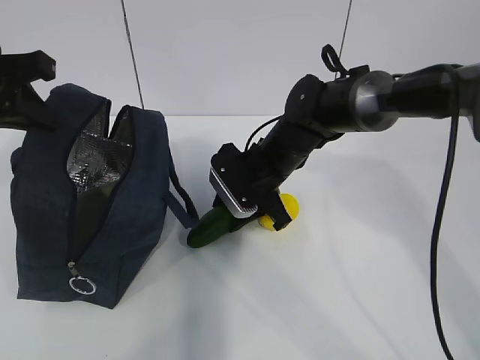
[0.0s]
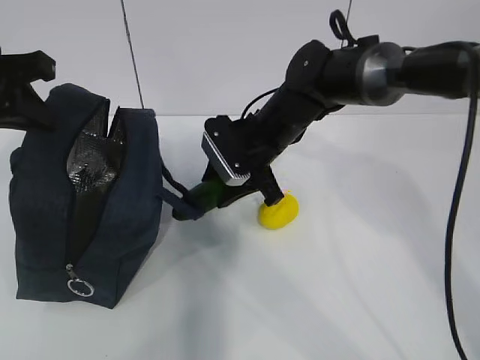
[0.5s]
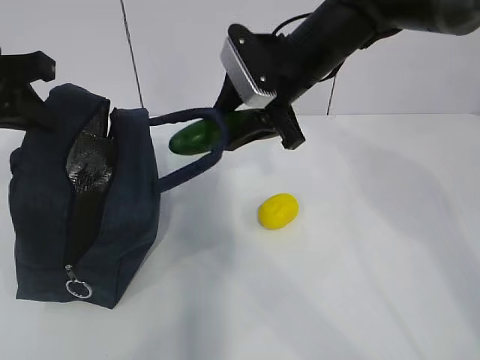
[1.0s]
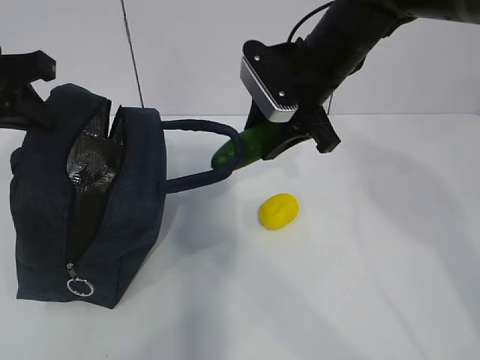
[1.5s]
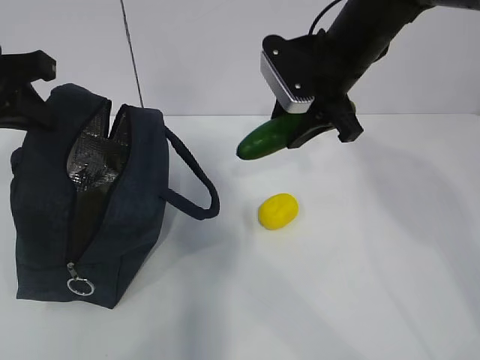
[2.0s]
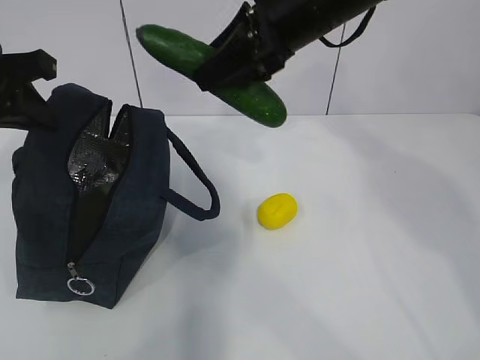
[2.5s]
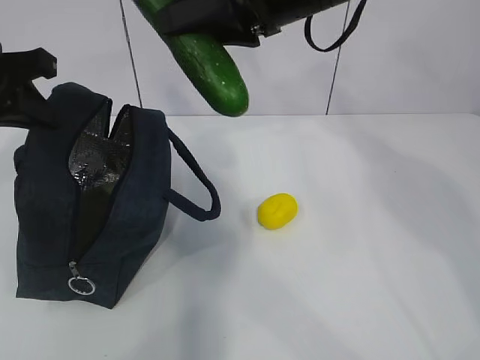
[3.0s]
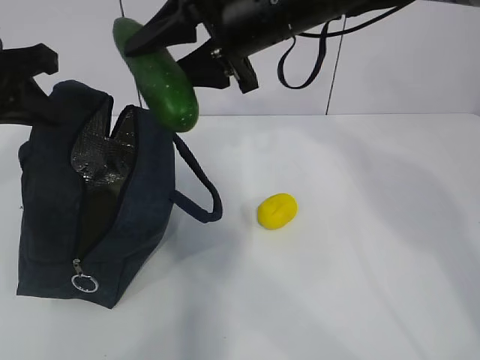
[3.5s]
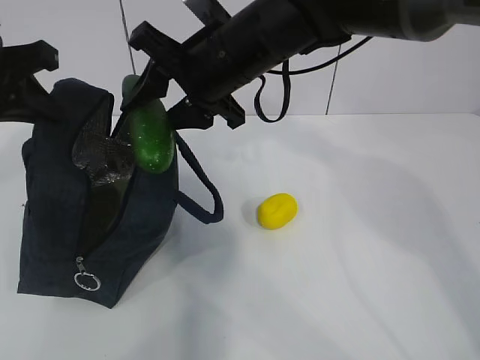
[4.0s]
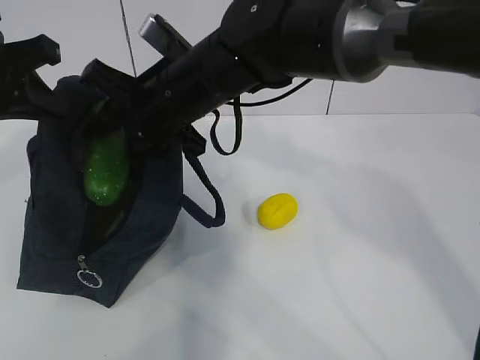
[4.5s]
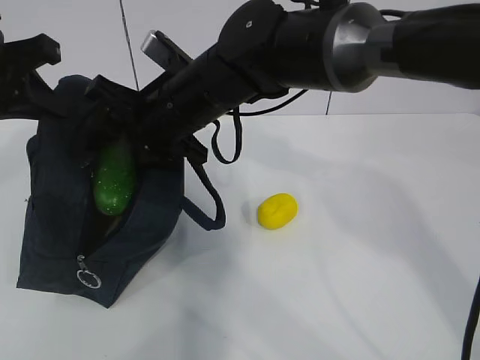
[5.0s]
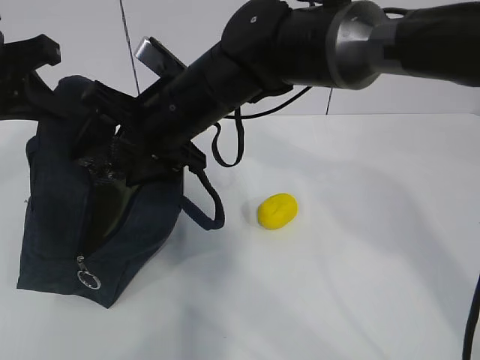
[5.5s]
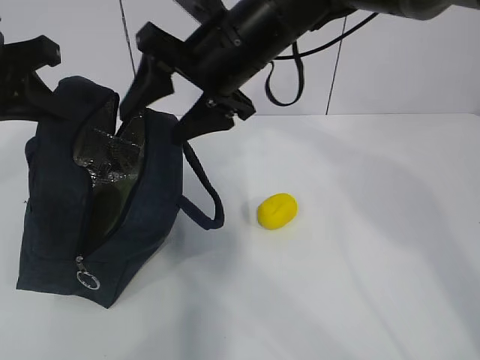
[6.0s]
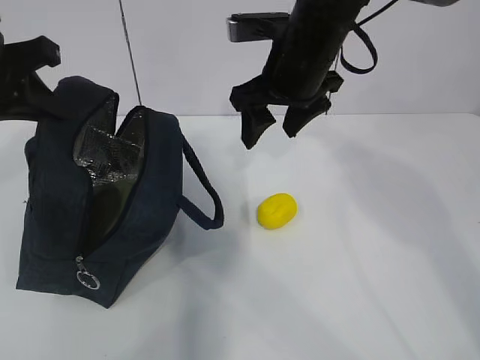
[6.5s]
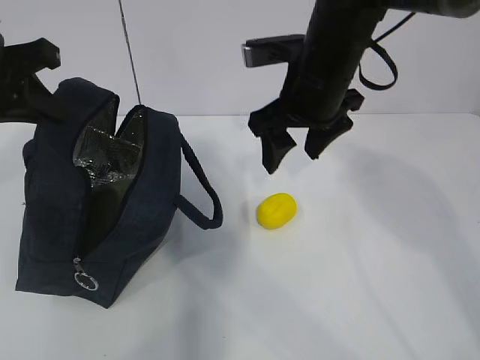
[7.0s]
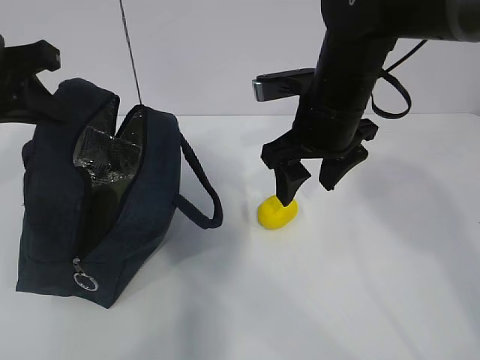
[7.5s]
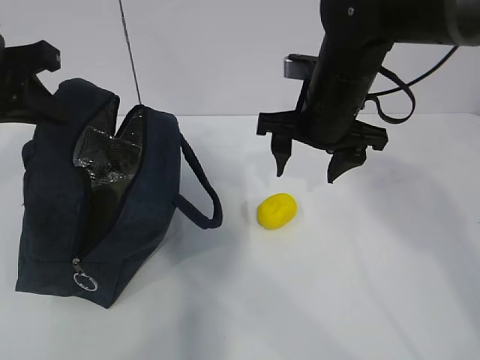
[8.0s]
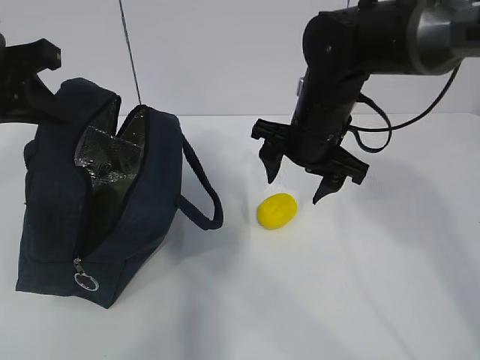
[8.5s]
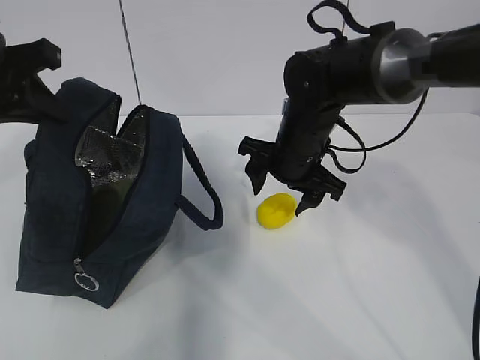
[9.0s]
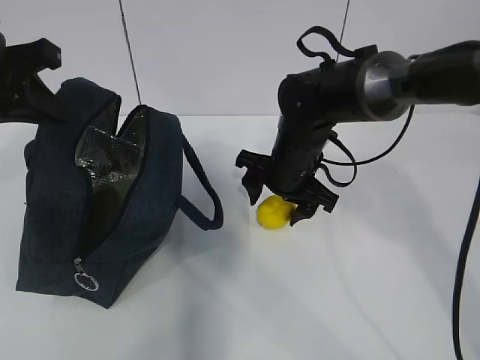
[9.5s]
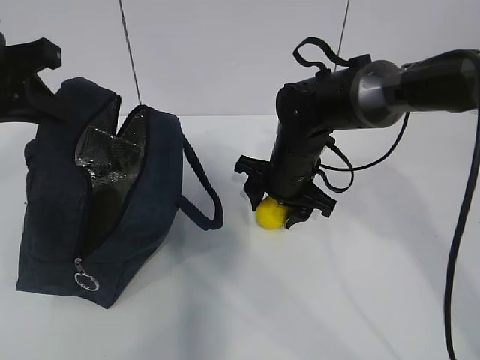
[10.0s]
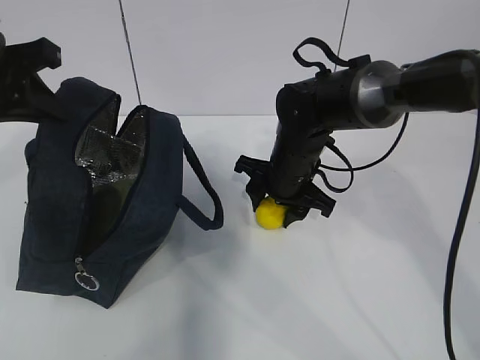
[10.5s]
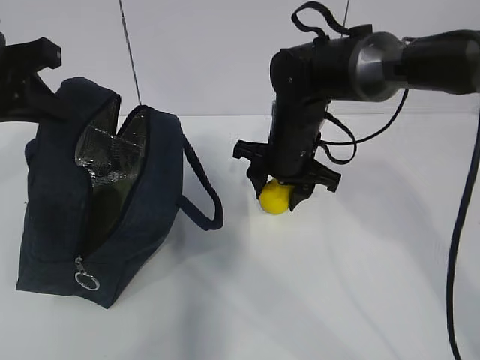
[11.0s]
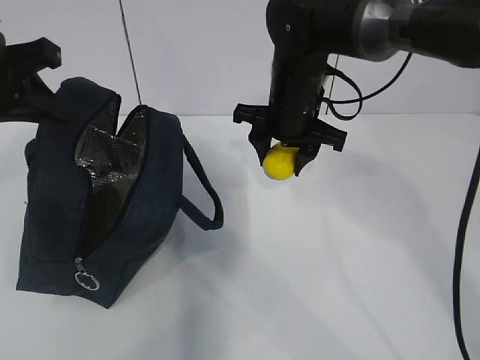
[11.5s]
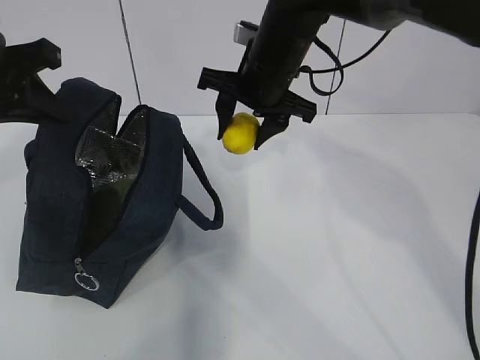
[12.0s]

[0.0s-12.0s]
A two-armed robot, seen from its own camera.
Step, 0.0s to 3.0s: Grab the lemon with your right hand.
Step, 7.5s to 10.0s: Grab the lunch bag with your right hand.
0.0s to 2.0s: The right gripper is displaced upward and to the right by about 15 cm.
2.0s to 4.0s: The right gripper travels to the left by roughly 10 cm.
6.0s to 8.0s: The right gripper goes approximately 10 cm to the right and downward.
8.0s to 10.0s: The right gripper travels downward by approximately 10 cm.
10.0s to 12.0s: The right gripper shifts some 10 cm upward.

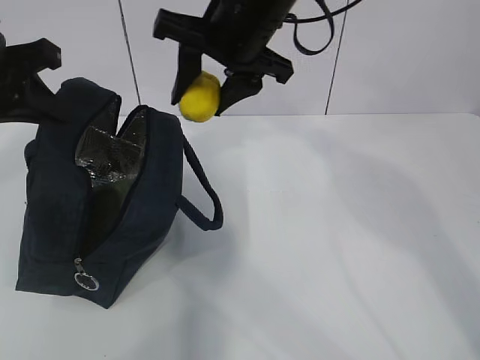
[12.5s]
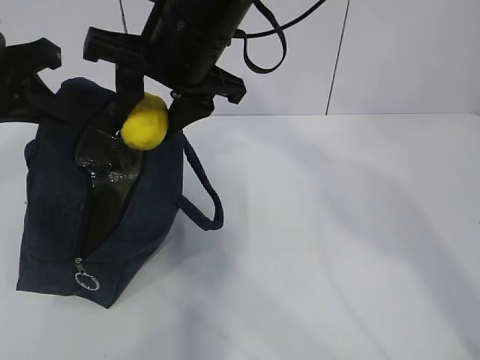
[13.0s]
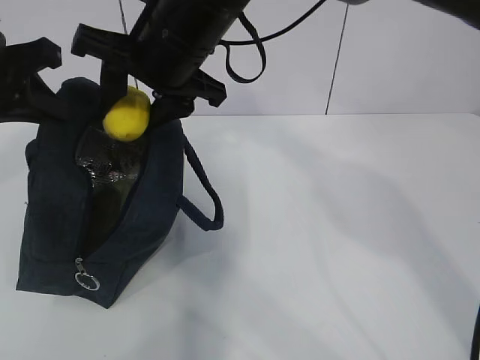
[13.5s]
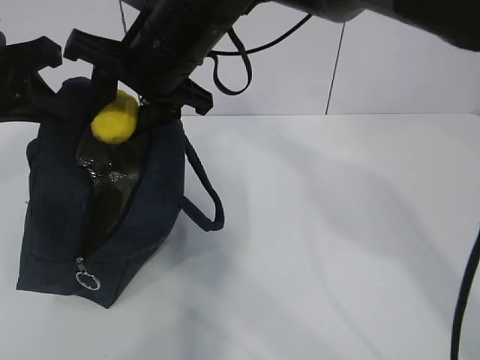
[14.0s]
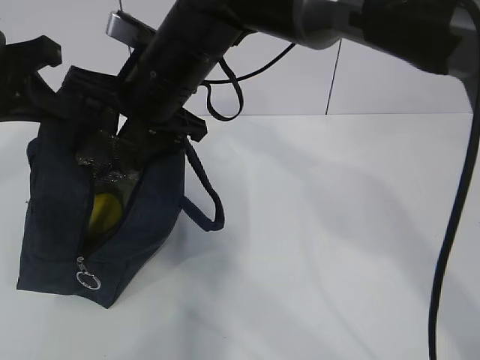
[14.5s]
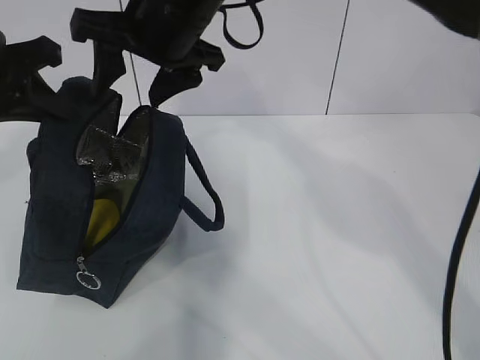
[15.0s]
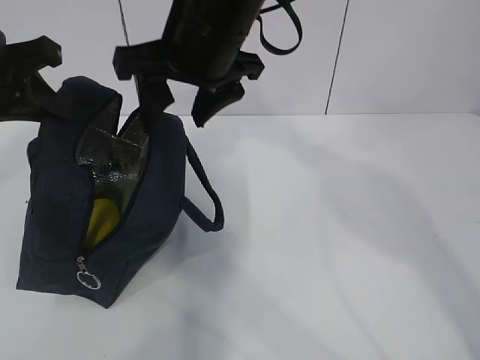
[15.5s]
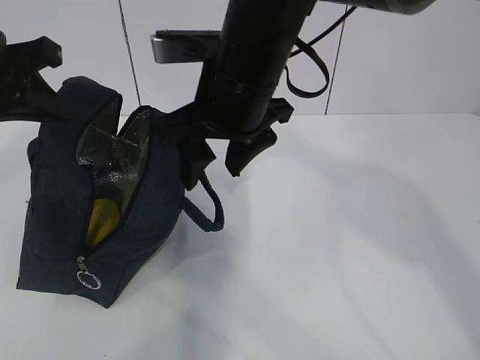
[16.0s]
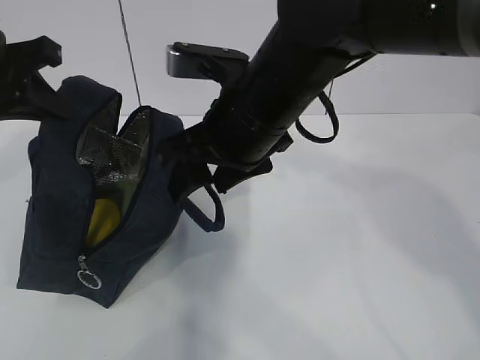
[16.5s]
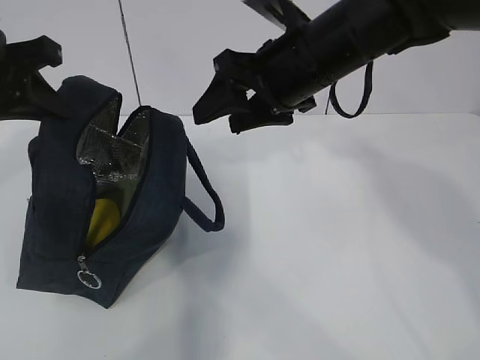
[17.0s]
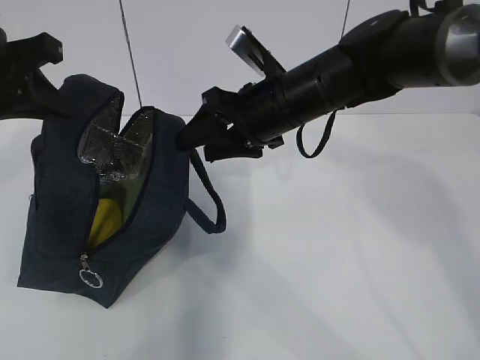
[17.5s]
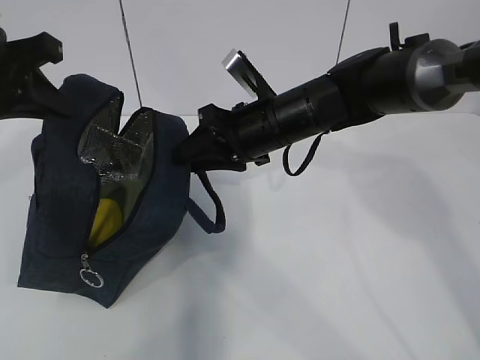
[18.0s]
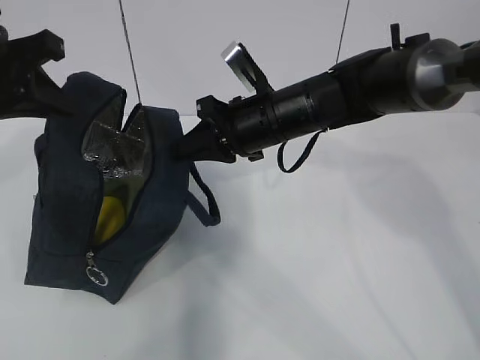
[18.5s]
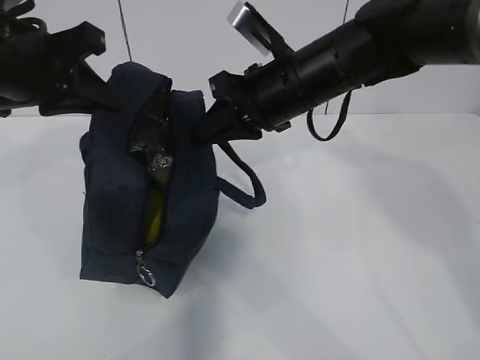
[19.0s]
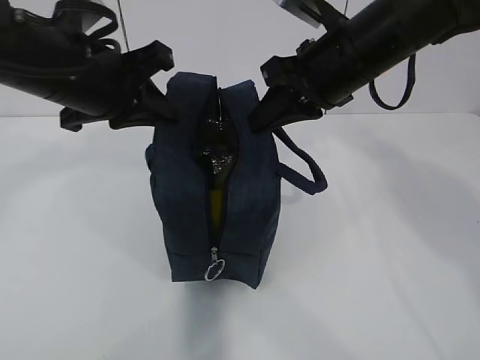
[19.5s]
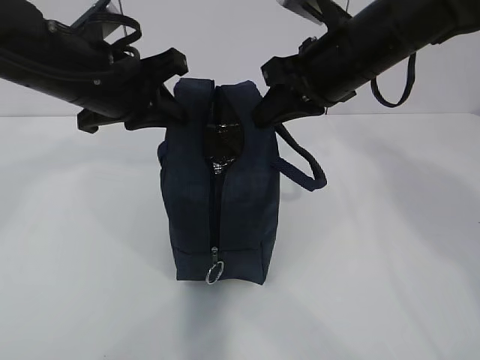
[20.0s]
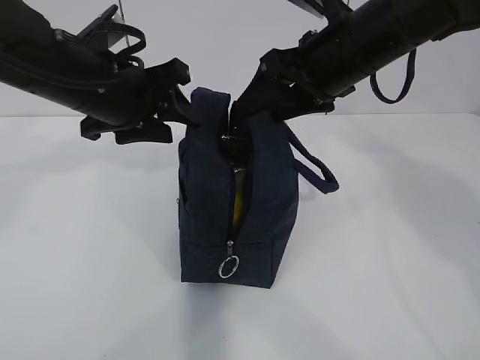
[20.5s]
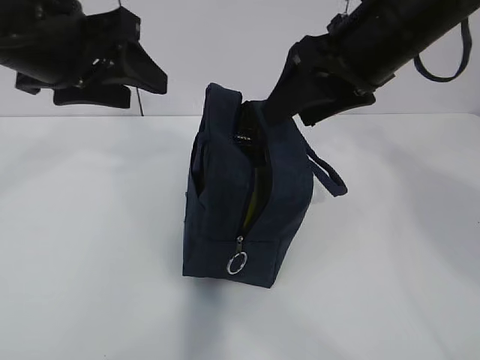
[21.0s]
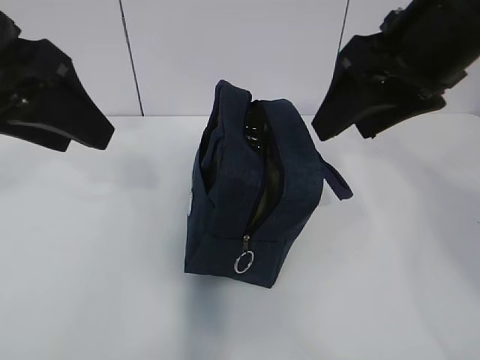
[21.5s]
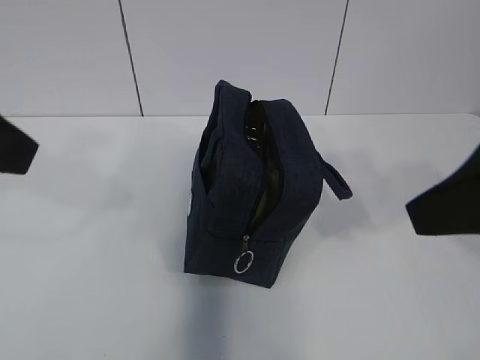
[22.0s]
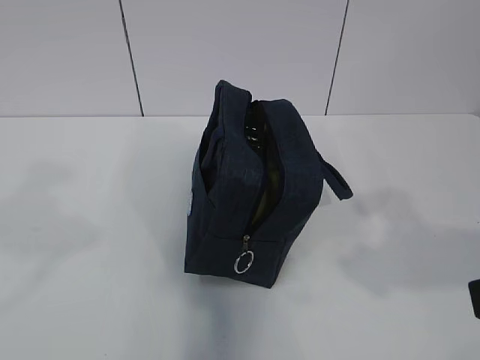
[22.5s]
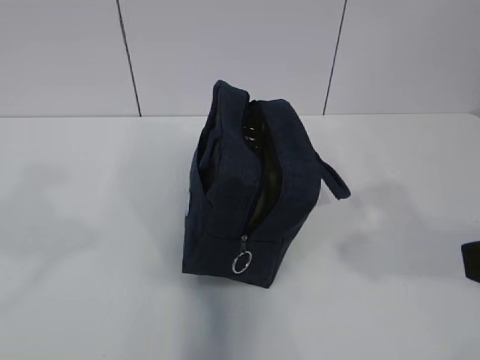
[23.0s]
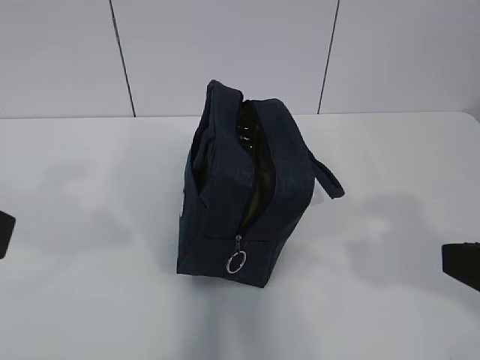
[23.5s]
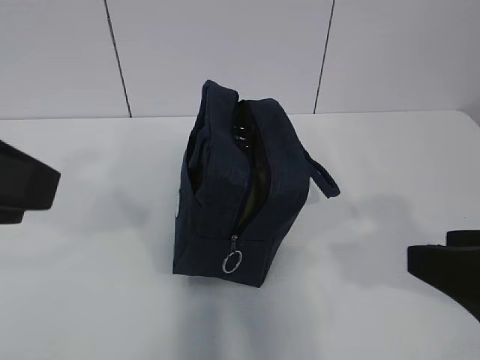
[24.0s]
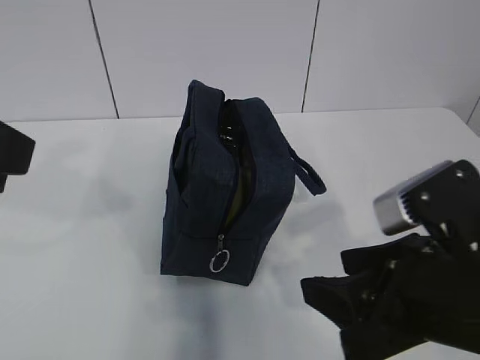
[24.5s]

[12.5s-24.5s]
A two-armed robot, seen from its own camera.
12.5s to 14.5s: The right gripper goes approximately 10 cm to the left and downward.
14.5s to 16.5s: The right gripper goes some 10 cm to the right and backward.
16.5s to 18.5s: The right gripper travels forward and downward by about 10 cm, and closes.
18.5s to 20.5s: The left gripper heads to the right, covering roughly 10 cm, and opens, while the right gripper heads upward and to the right, covering approximately 10 cm, and opens its fingers.
20.5s to 22.5s: The right gripper is displaced backward by some 30 cm, while the left gripper is displaced backward, to the left and upward by approximately 30 cm.
22.5s to 24.5s: The left gripper heads forward, covering roughly 5 cm; the right gripper shifts some 15 cm downward, to the left and forward.

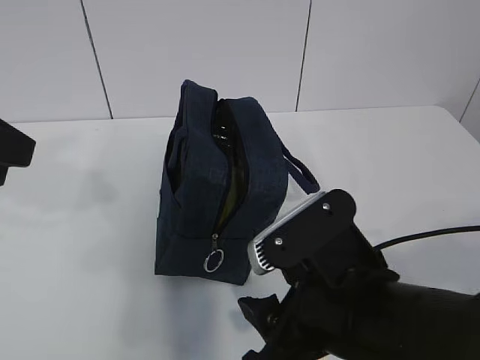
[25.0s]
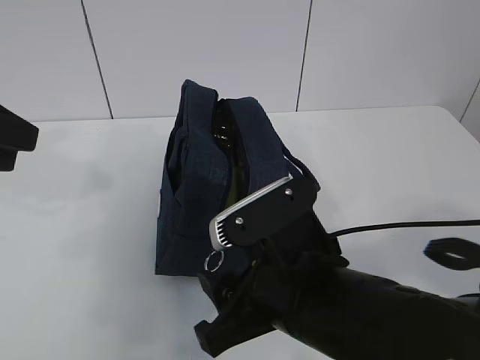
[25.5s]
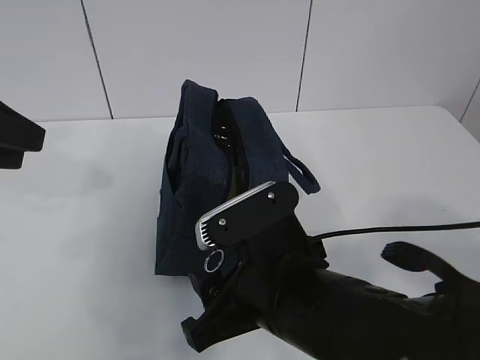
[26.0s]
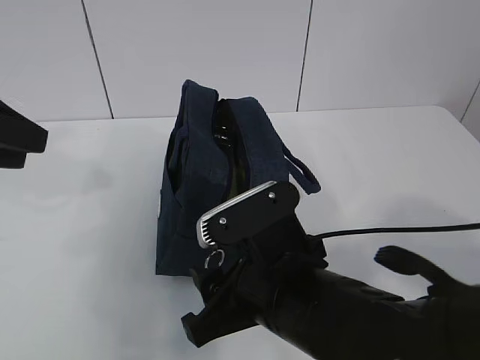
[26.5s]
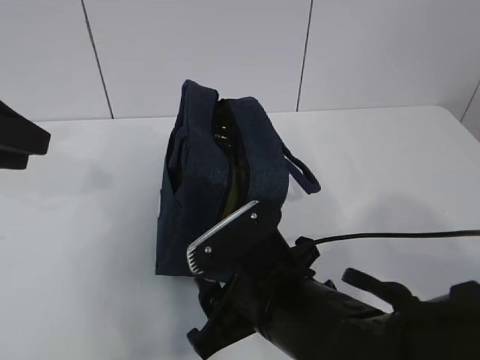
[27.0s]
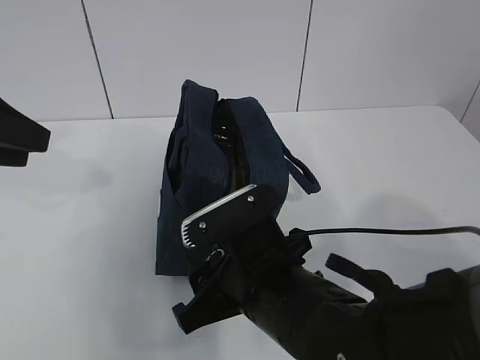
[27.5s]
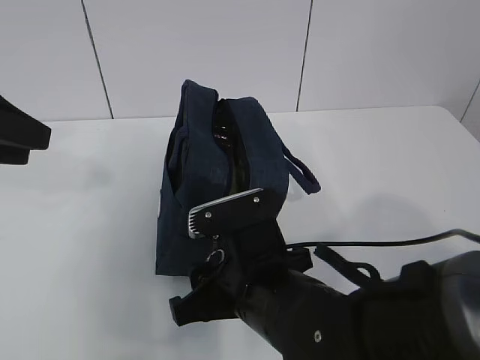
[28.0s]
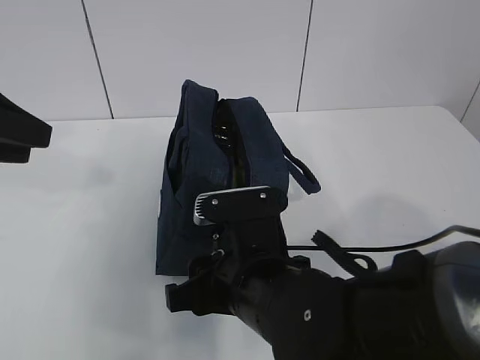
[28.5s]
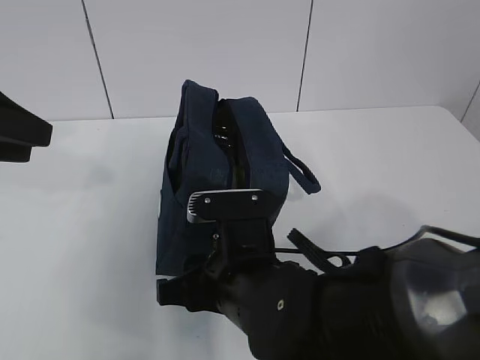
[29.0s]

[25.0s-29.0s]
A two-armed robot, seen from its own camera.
25.0s to 27.0s: The right gripper moves approximately 5 cm. Meanwhile the left gripper moves forward, approximately 5 cm.
